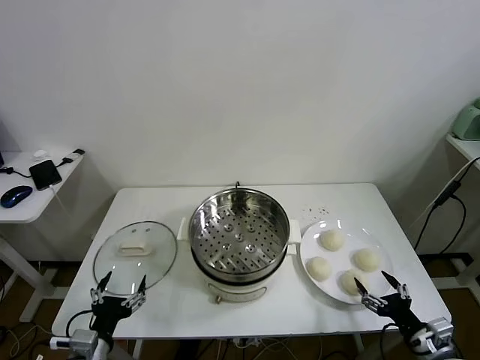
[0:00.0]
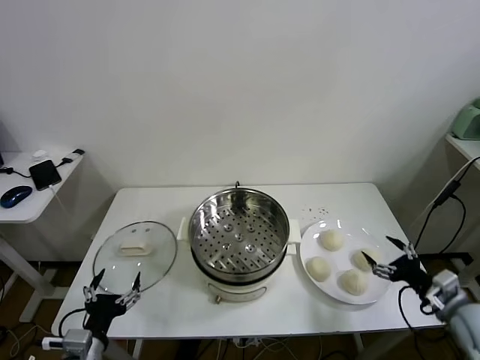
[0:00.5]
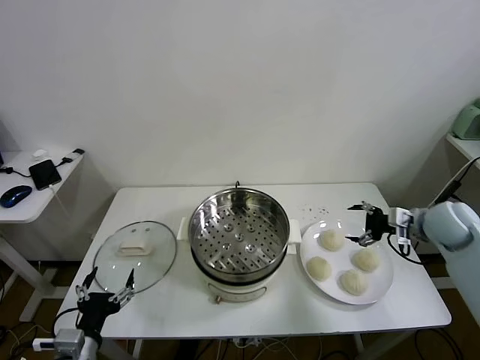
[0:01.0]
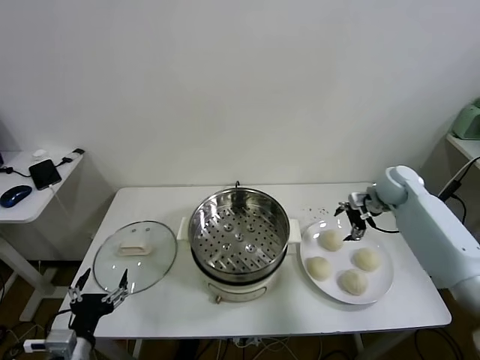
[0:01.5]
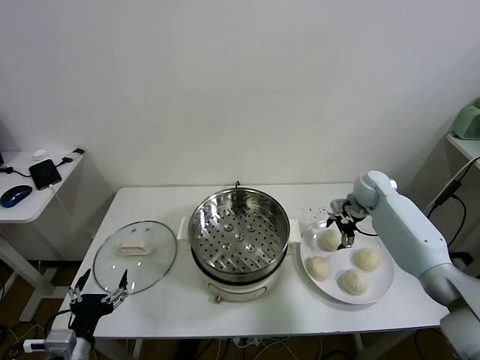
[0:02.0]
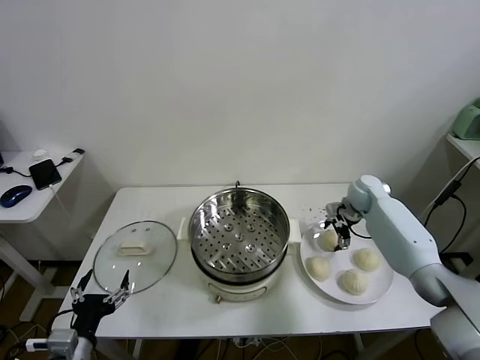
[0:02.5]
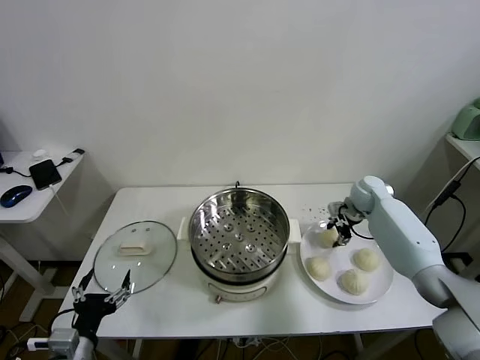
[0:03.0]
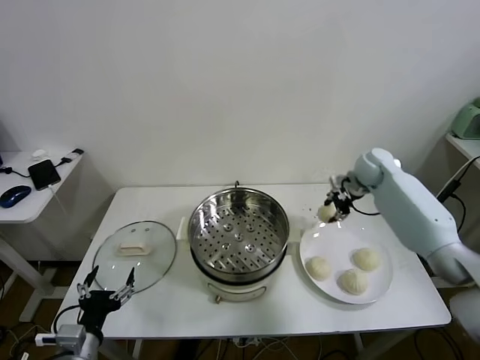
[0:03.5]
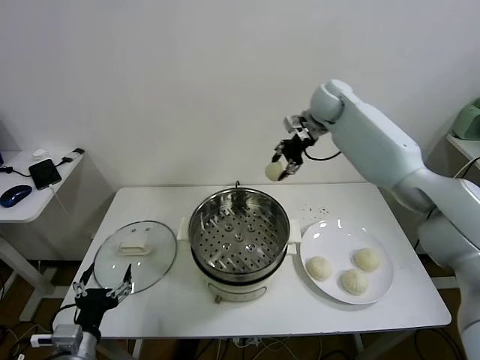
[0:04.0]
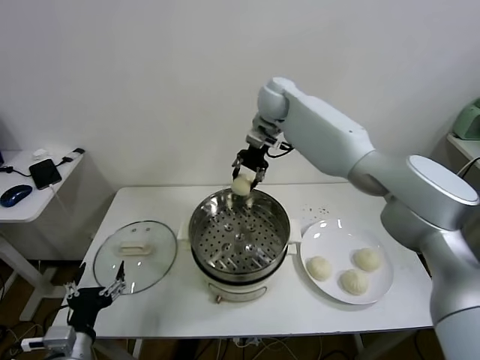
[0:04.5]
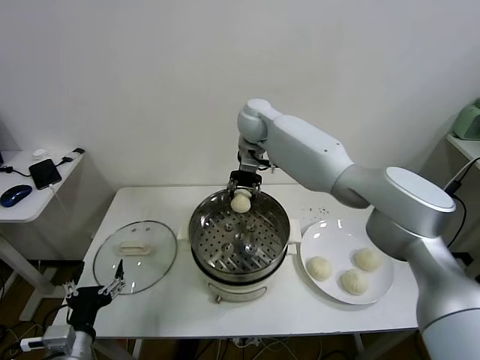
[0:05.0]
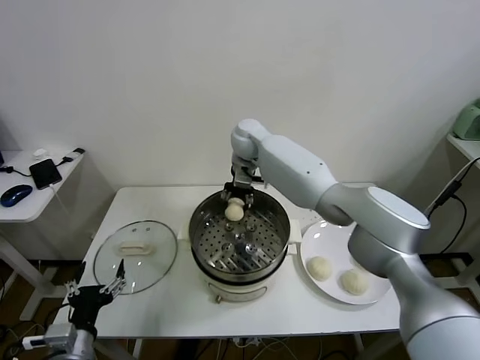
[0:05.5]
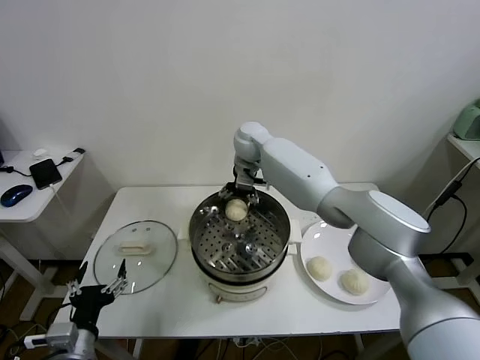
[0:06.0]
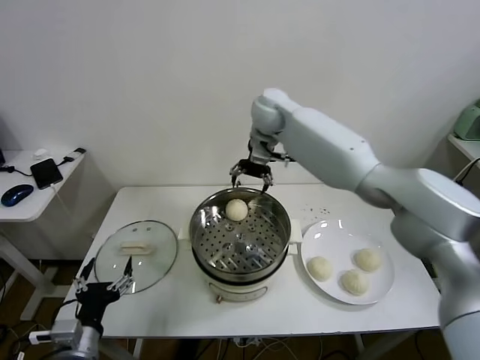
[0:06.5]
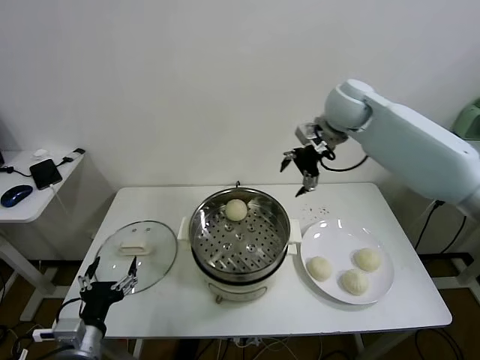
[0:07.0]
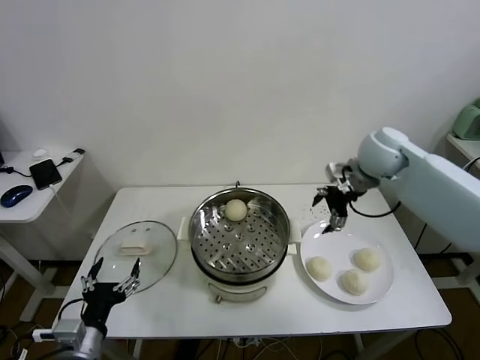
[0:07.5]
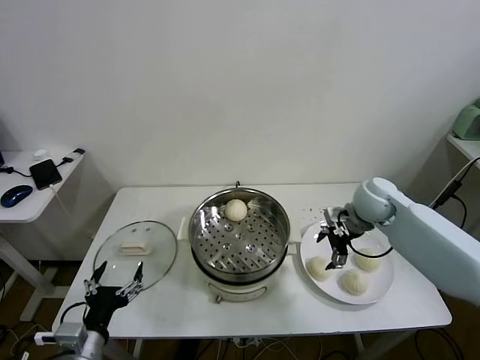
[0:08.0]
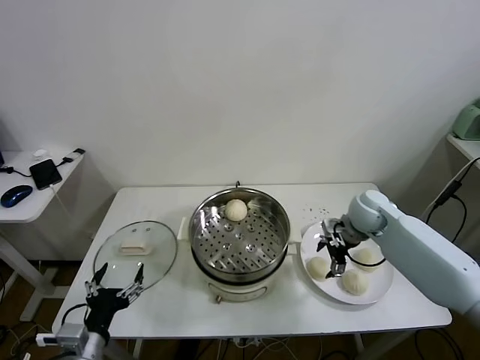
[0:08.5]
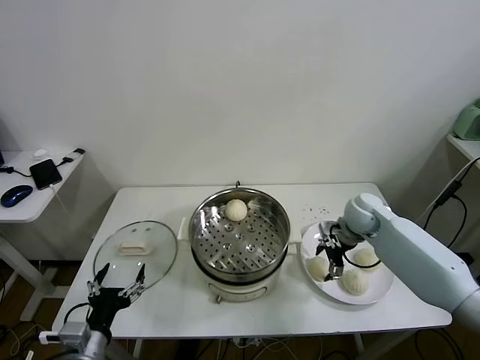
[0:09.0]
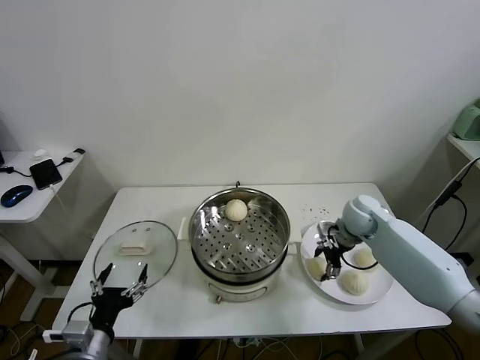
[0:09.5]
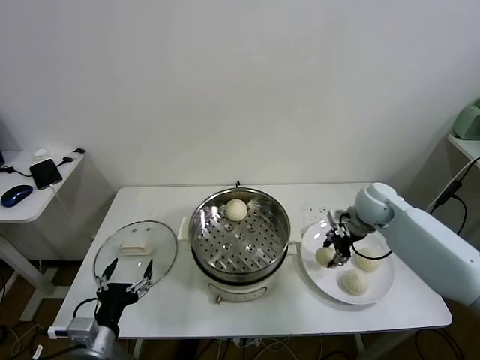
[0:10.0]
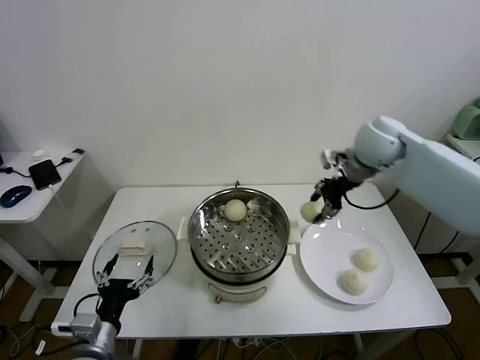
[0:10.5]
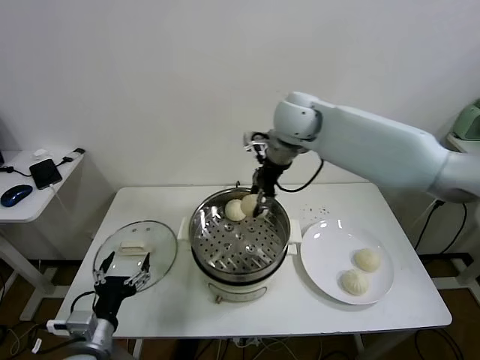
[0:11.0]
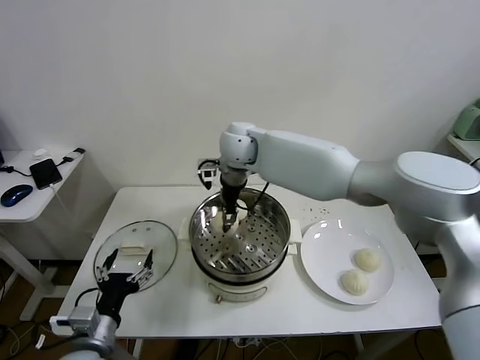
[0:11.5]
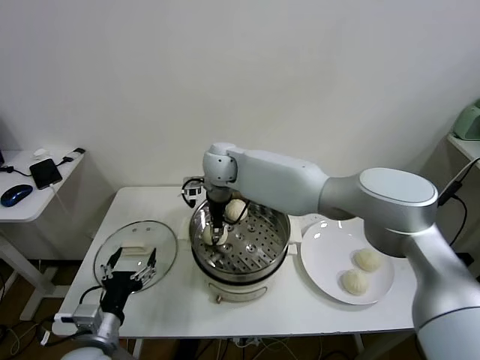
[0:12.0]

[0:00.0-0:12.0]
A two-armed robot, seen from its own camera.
Task of the whole recording: take steamed baozi put them in steamer.
Step, 0:00.0 to 0:03.0: Grasp the baozi in the plate with right gripper.
Step, 0:03.5 to 0:06.0: Place the baozi on the steamer with right gripper.
Step, 0:06.5 to 0:09.5: Grasp the baozi in the plate with right gripper.
0:02.0 to 0:04.0: The right gripper travels upward and to the left by approximately 30 cm, and closes up.
0:04.0 to 0:06.0: The right gripper moves to the left and downward, about 20 cm, and opens its fingers.
0:06.0 to 0:08.0: The right gripper moves to the right and backward, roughly 30 cm.
0:08.0 to 0:10.0: The right gripper closes.
0:10.0 to 0:12.0: The right gripper moves to the left, some 35 cm.

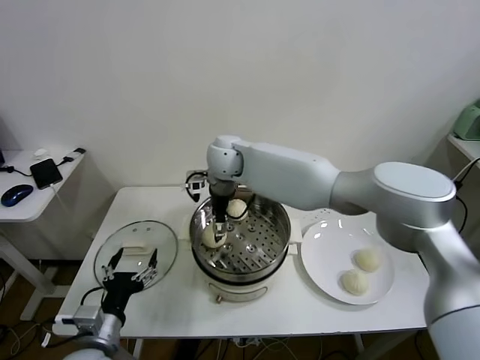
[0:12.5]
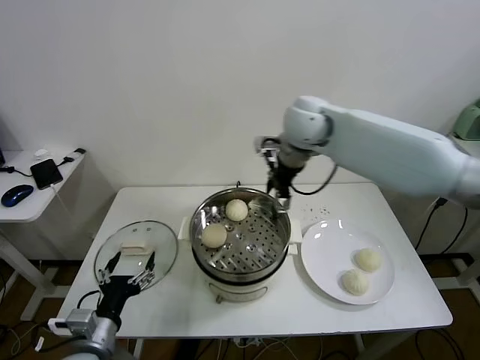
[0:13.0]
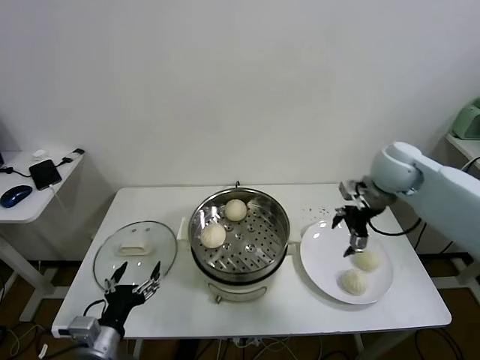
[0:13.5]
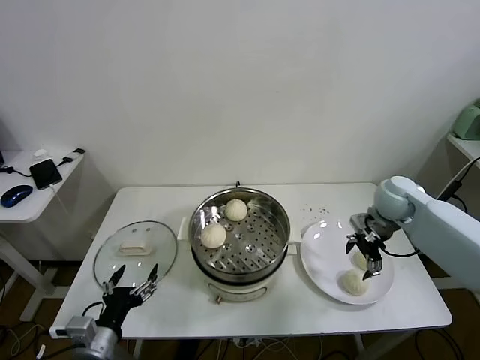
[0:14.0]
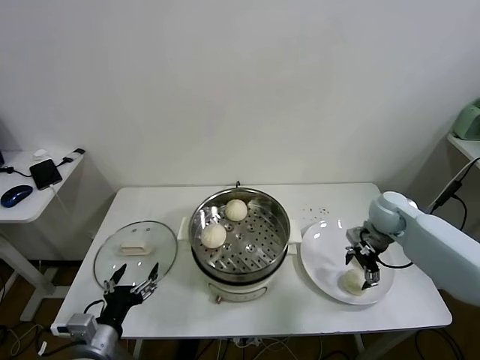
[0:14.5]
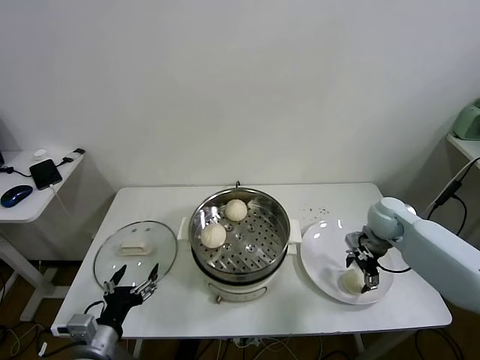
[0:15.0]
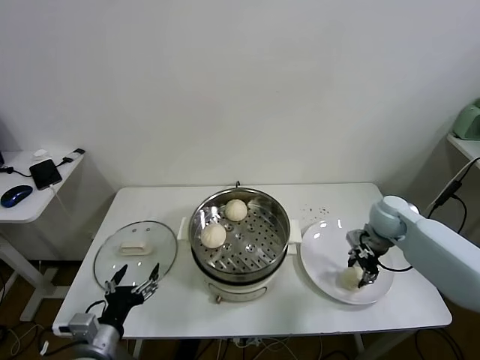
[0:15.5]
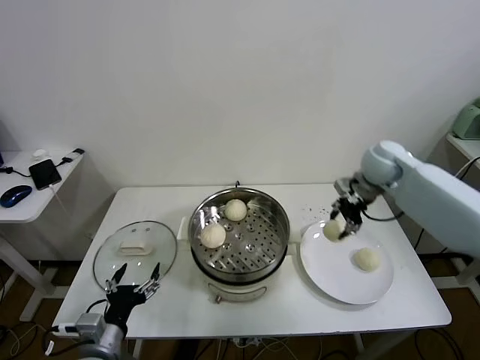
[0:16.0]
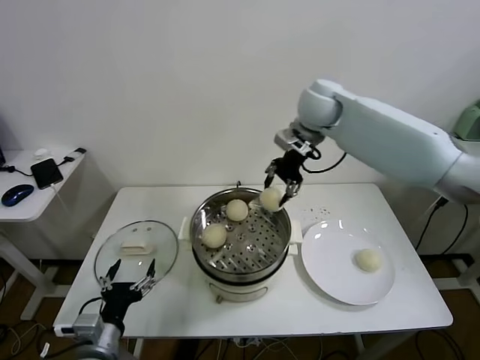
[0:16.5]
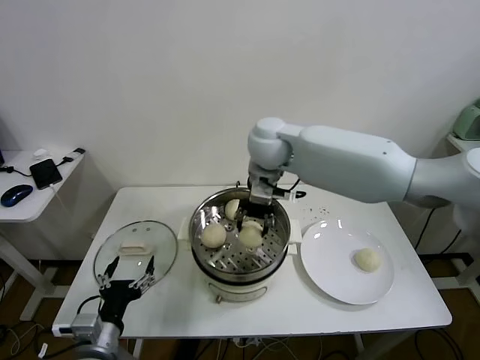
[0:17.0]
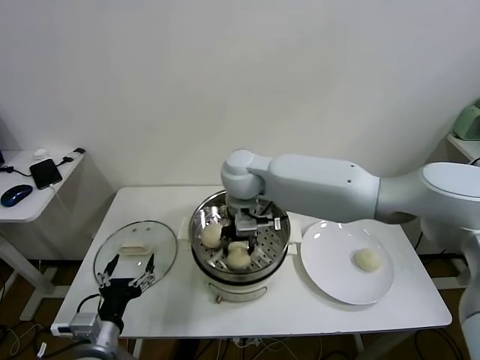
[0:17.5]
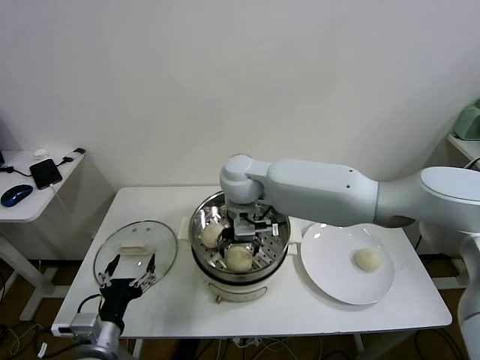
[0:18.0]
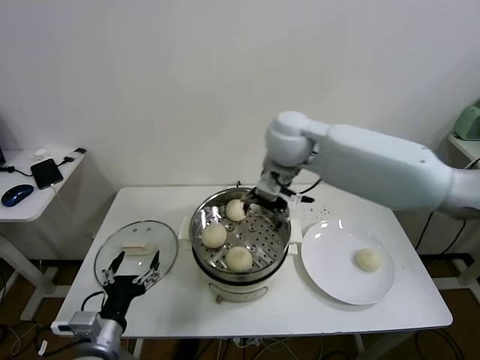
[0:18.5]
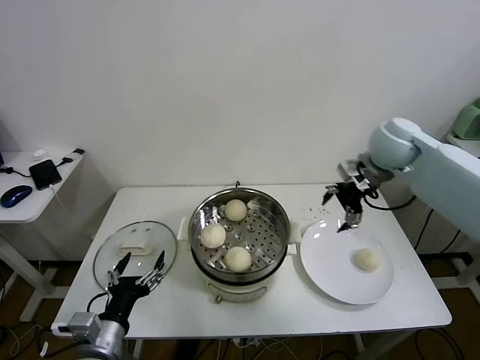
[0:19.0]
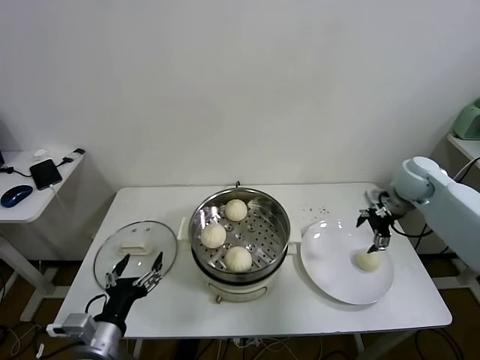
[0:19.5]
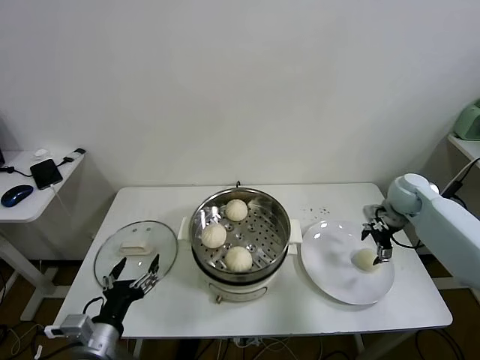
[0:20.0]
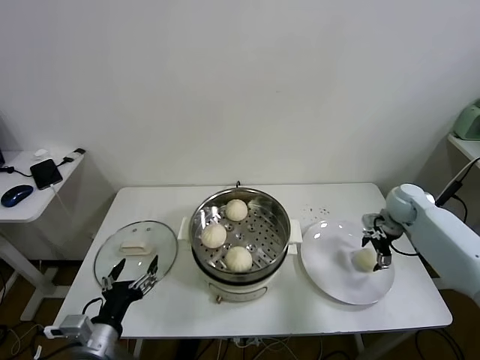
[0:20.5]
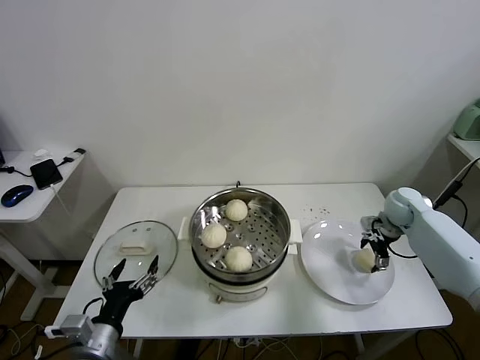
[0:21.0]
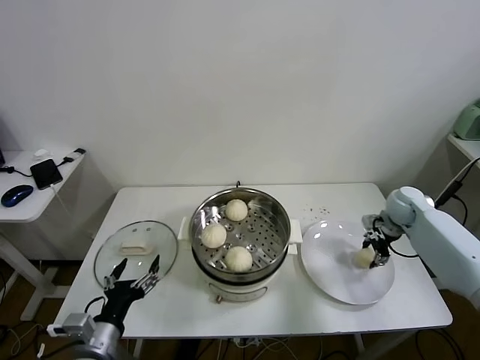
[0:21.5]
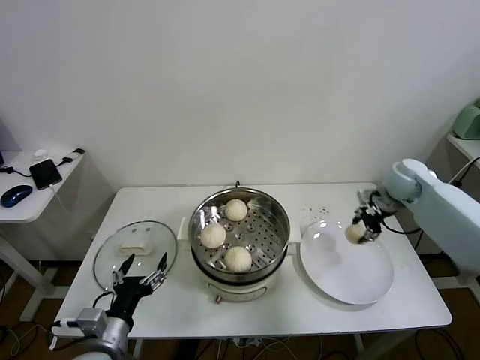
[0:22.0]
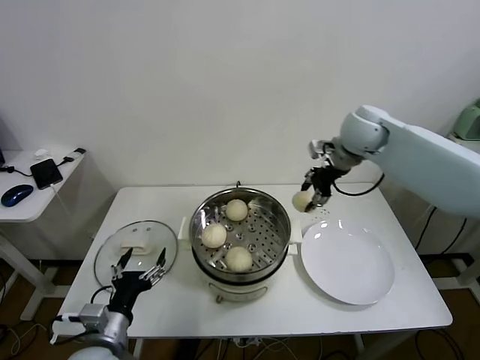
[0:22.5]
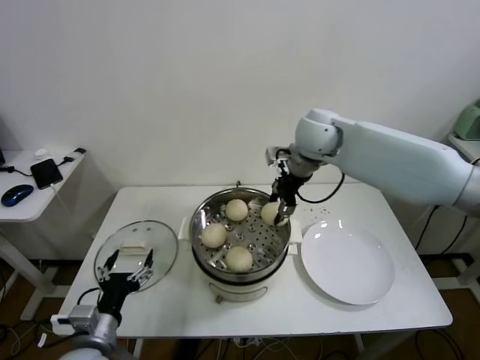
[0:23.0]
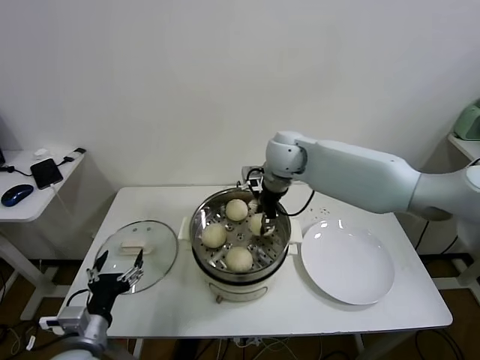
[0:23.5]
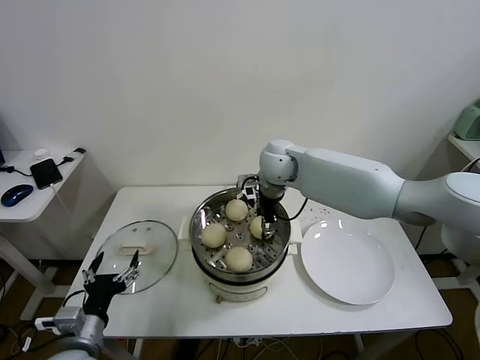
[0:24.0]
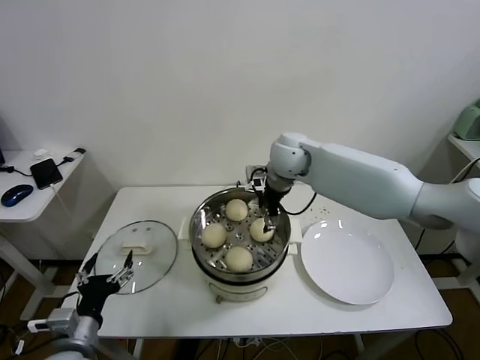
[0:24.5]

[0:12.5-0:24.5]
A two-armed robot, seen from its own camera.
Task of the whole recording: take steamed baozi put them in steamer.
Step, 0:12.5 to 0:15.0: Grasp the baozi in the plate with right gripper.
Step, 0:15.5 to 0:18.0: Place the baozi on the steamer with right gripper.
Step, 0:18.5 to 0:21.0: Grasp the baozi in the plate with right gripper.
Step, 0:21.5 to 0:24.0: Place the baozi on the steamer with right gripper.
0:12.5 to 0:14.5: The right gripper moves to the right, approximately 40 cm.
0:14.5 to 0:16.5: The right gripper shifts roughly 30 cm upward and to the left, and closes.
0:16.5 to 0:18.5: The right gripper goes roughly 10 cm backward, travels to the left and back again, some 15 cm each way, and opens its fingers.
0:18.5 to 0:20.5: The right gripper heads to the right and downward, covering roughly 40 cm.
0:20.5 to 0:22.5: The right gripper shifts some 25 cm upward and to the left, and closes its fingers.
0:22.5 to 0:24.5: The right gripper is displaced to the left and downward by roughly 15 cm, and opens its fingers.

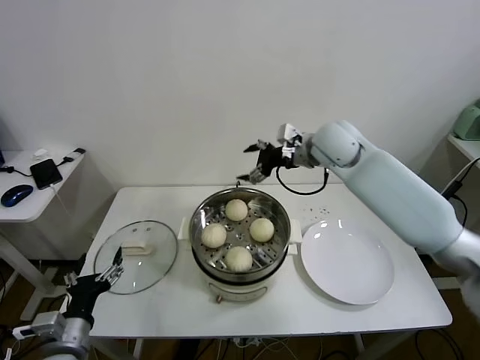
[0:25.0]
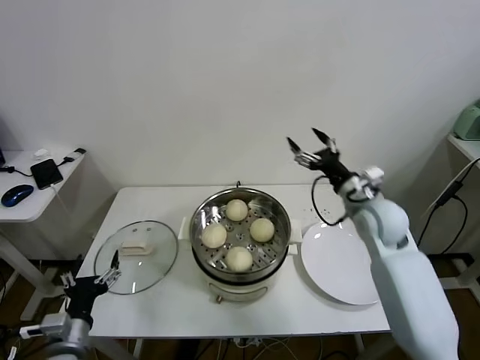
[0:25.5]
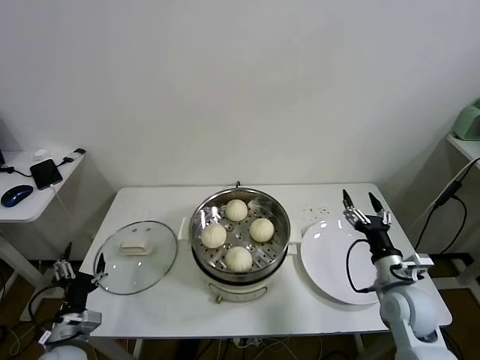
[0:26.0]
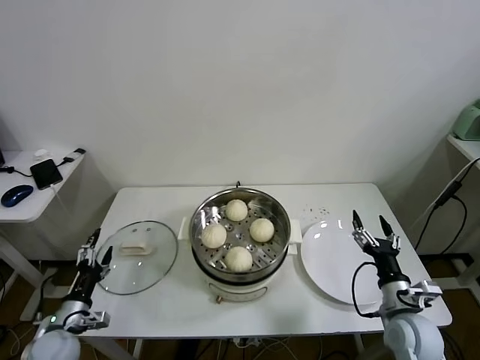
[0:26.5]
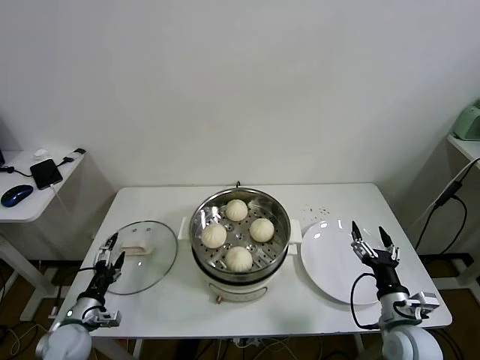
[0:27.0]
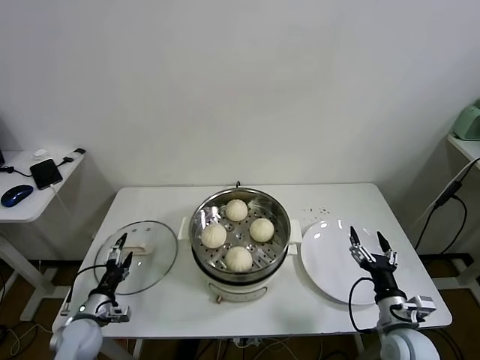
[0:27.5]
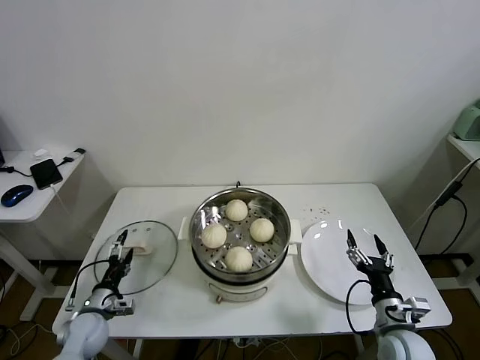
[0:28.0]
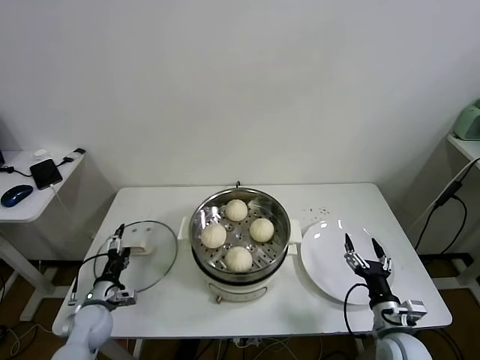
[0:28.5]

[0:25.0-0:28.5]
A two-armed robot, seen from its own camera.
Task of the whole recording: take steamed baozi put them in steamer.
0:25.0 to 0:27.0: The left gripper goes about 15 cm downward, to the left and forward. The right gripper is displaced backward, downward and to the right by roughly 40 cm.
0:27.0 to 0:28.5: The left gripper shifts roughly 5 cm forward.
